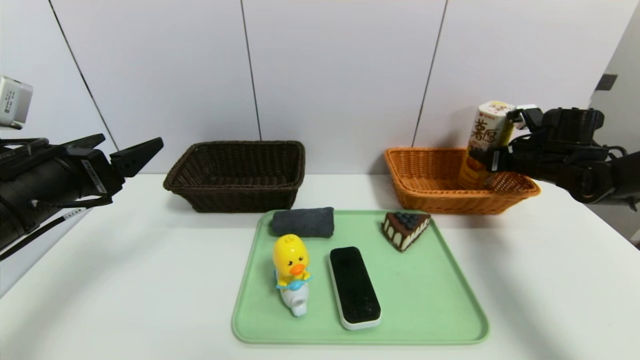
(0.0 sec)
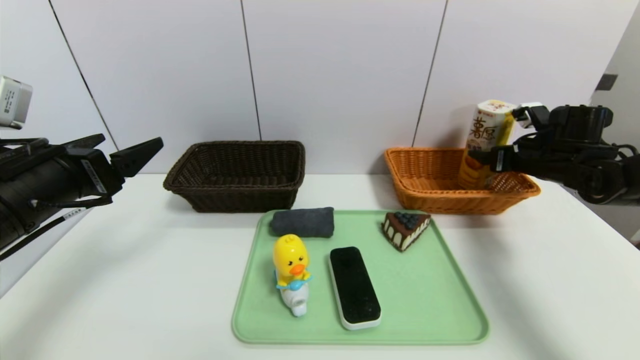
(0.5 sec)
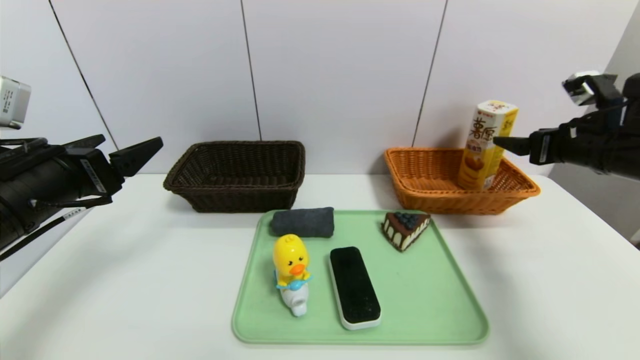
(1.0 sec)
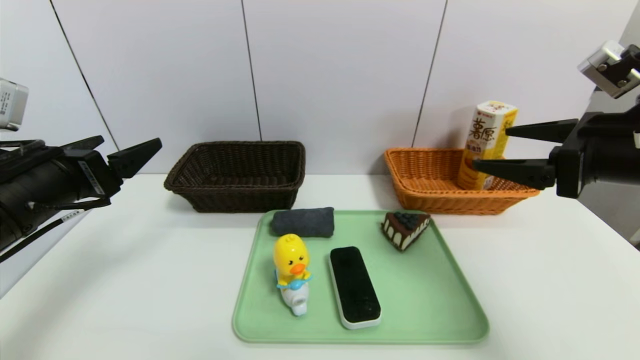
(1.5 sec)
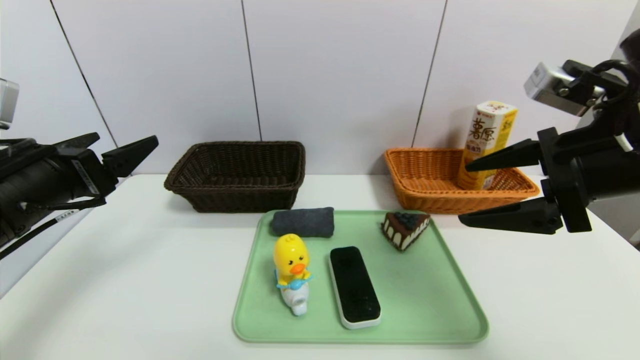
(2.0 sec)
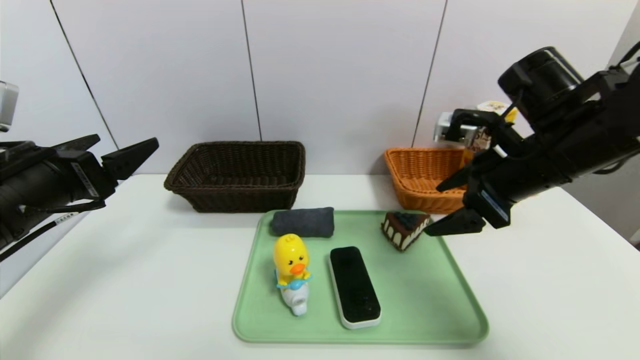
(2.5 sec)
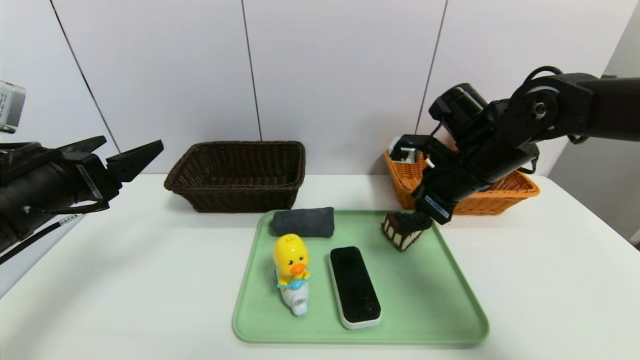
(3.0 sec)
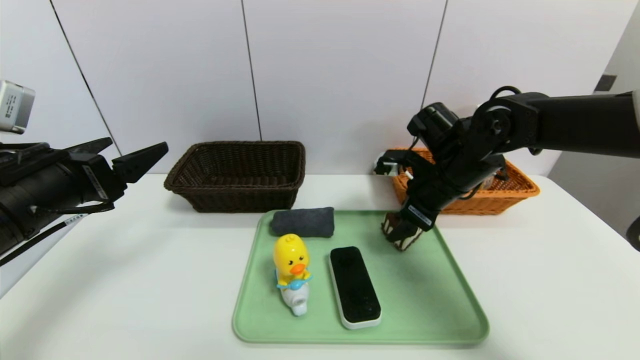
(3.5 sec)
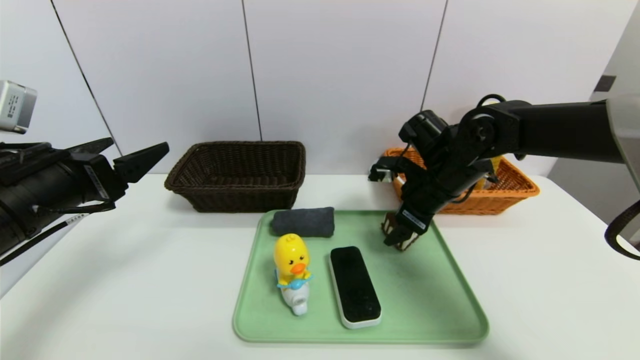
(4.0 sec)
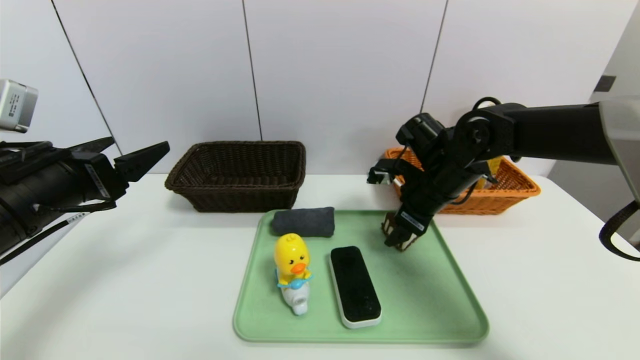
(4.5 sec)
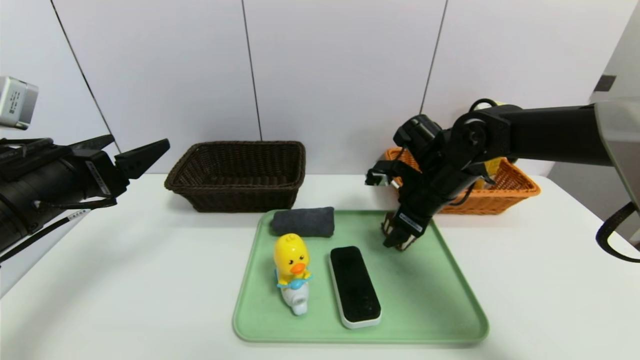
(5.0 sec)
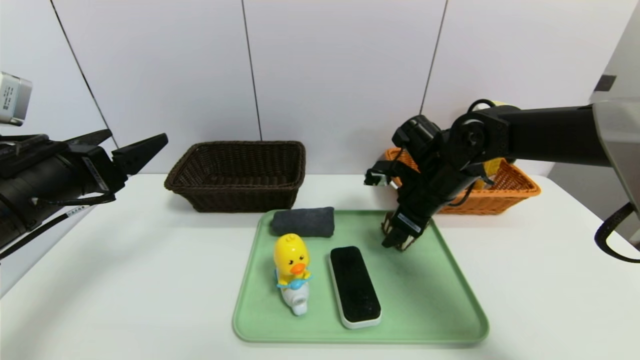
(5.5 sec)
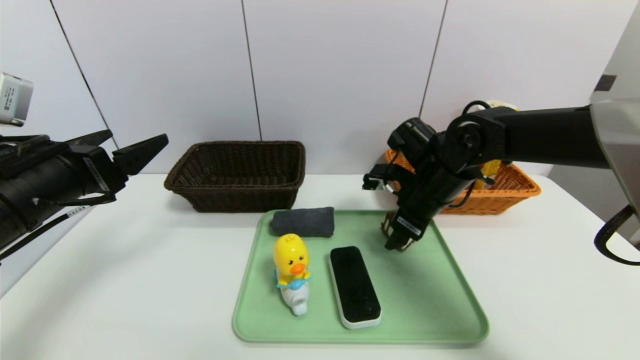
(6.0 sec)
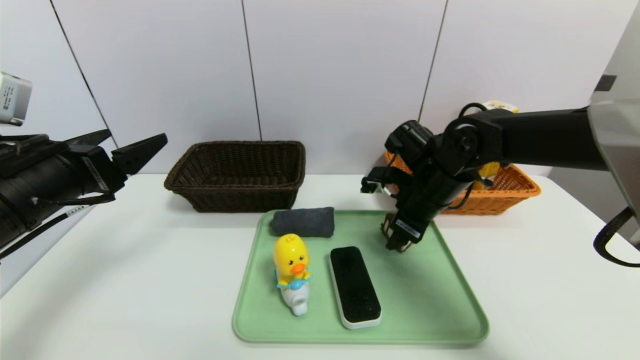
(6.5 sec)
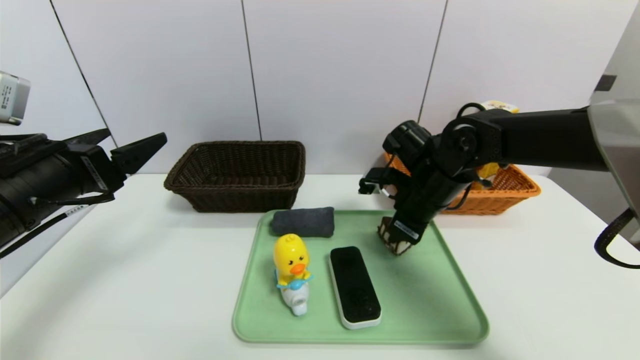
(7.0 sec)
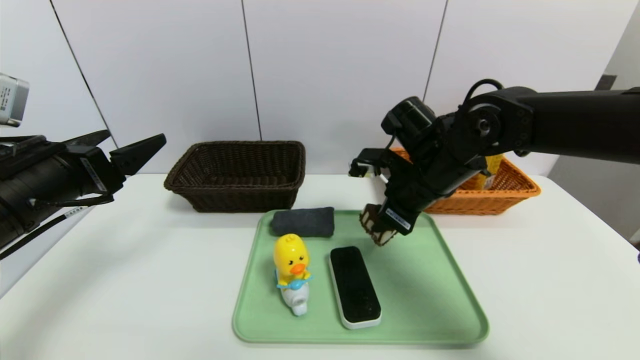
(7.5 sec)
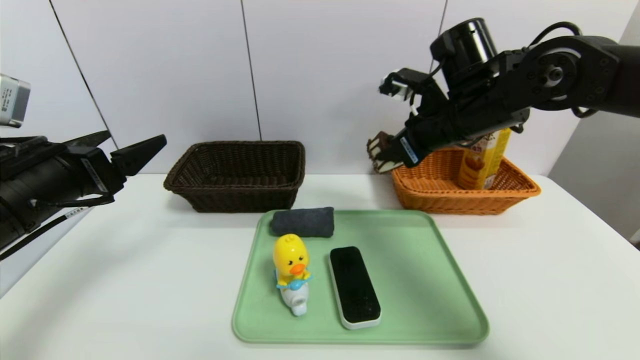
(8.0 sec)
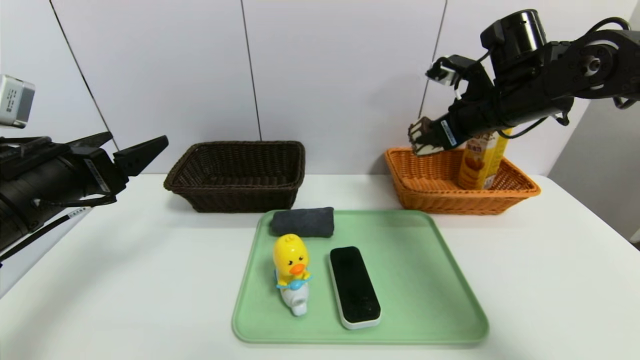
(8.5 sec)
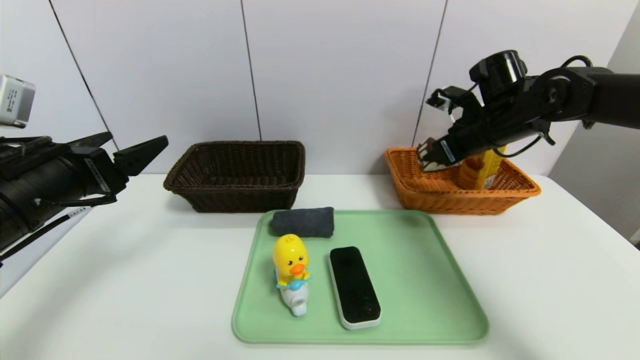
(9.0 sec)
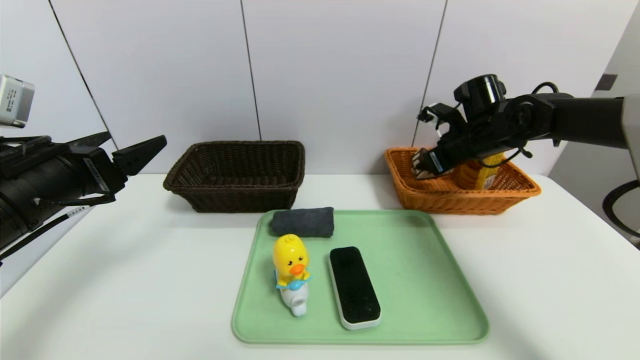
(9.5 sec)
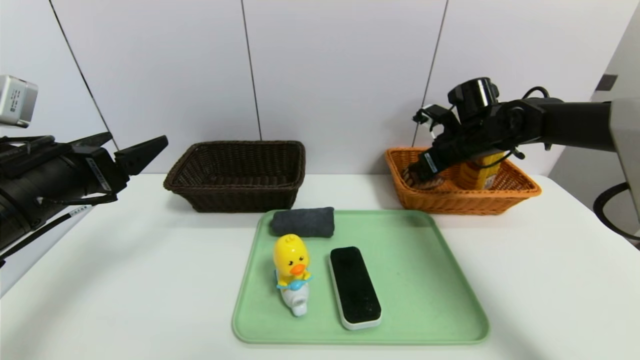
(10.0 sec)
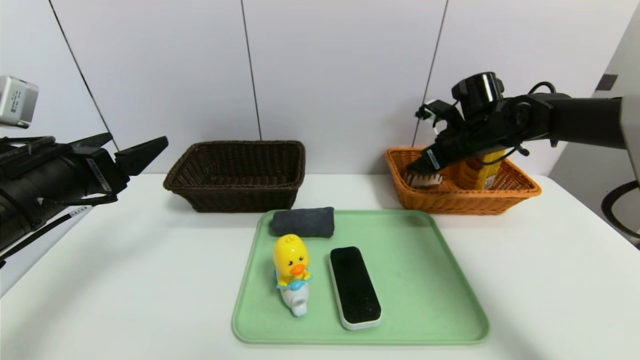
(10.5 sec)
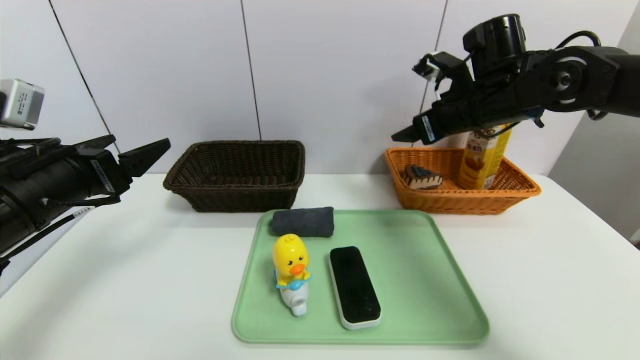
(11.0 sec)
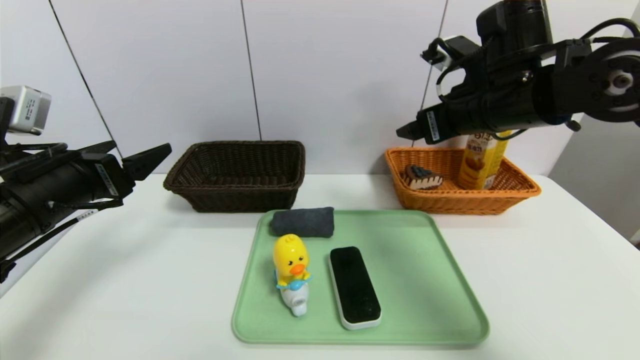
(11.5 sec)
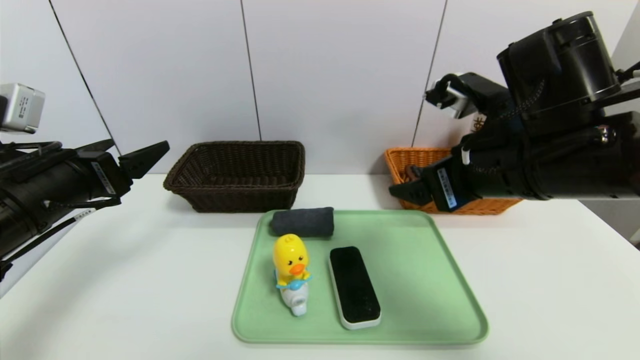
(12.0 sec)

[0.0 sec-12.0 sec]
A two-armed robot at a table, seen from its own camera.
Task of the whole recording: place the food in the right basket with the right gripper, and place the non food items in the left basket with the left gripper.
Step, 1.0 sec to 10.5 sec: Grasp the triangle cake and put it in the right basket.
0.0 sec to 2.0 sec: The right gripper shifts roughly 25 cm backward, upward and to the left, and opens up.
2.0 sec to 4.0 sec: The right gripper heads forward, downward and to the left, covering approximately 20 cm.
4.0 sec to 6.0 sec: The grippers make only small movements.
6.0 sec to 8.0 sec: The right gripper shifts approximately 10 cm upward, and closes.
8.0 sec to 10.0 sec: The right gripper travels forward, downward and to the right by approximately 15 cm, and opens its fingers.
10.0 sec to 12.0 sec: The right gripper shifts about 25 cm backward, and opens up.

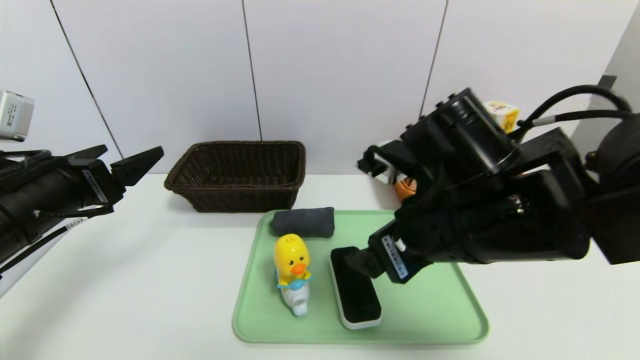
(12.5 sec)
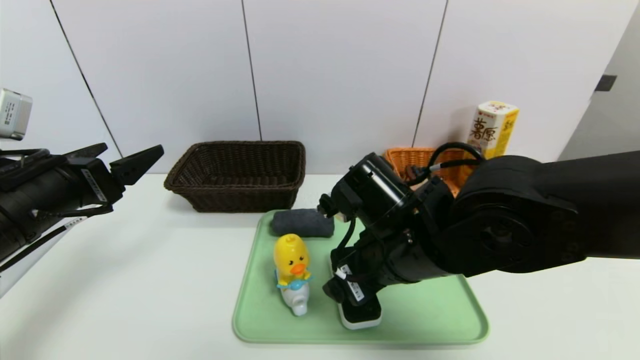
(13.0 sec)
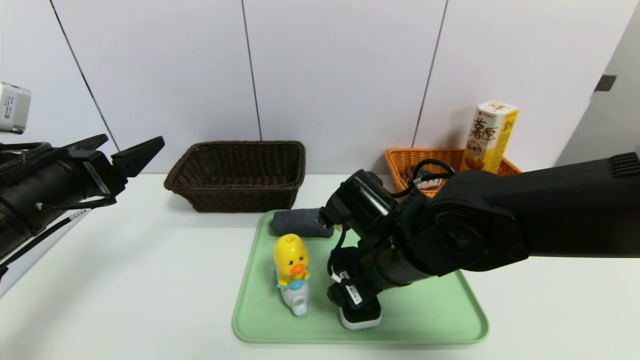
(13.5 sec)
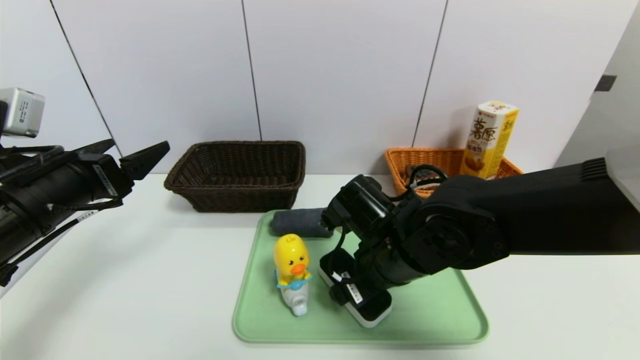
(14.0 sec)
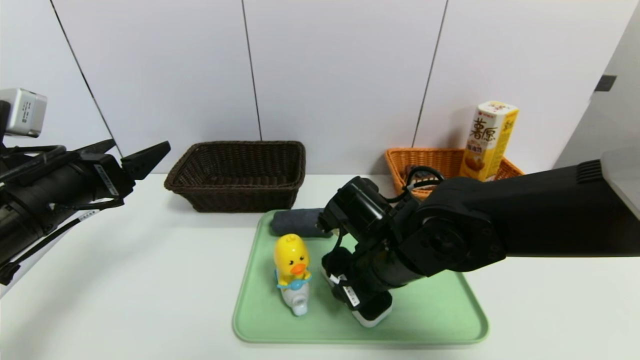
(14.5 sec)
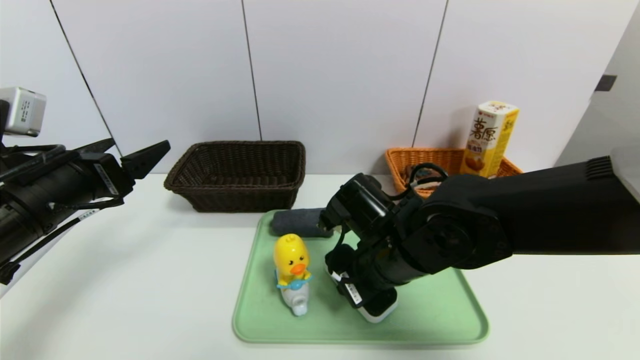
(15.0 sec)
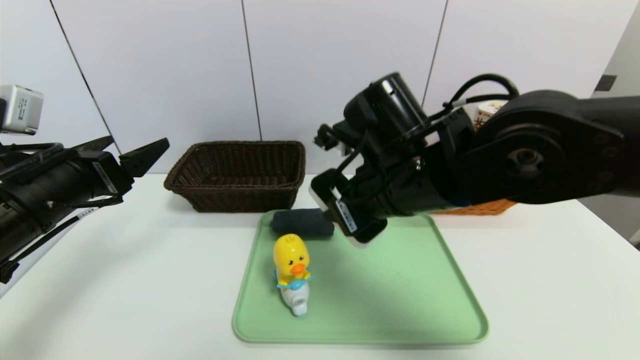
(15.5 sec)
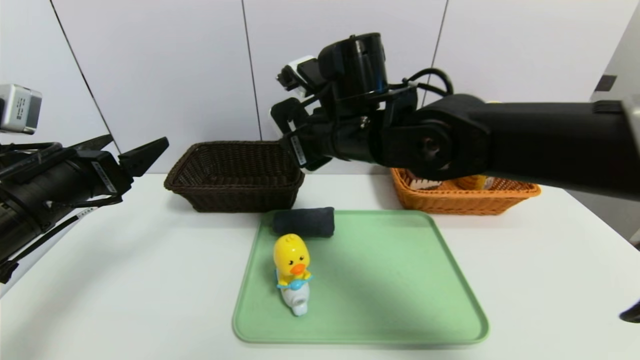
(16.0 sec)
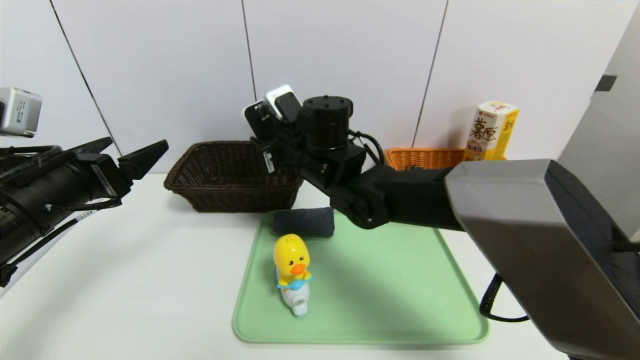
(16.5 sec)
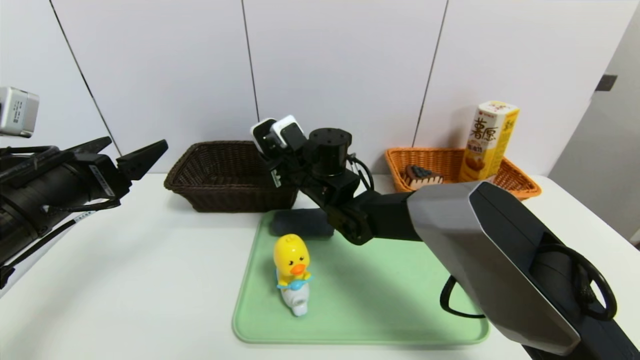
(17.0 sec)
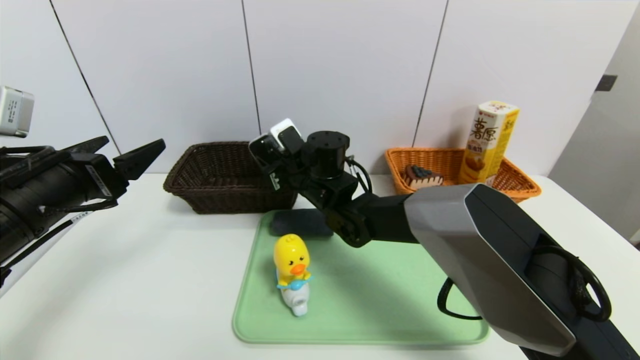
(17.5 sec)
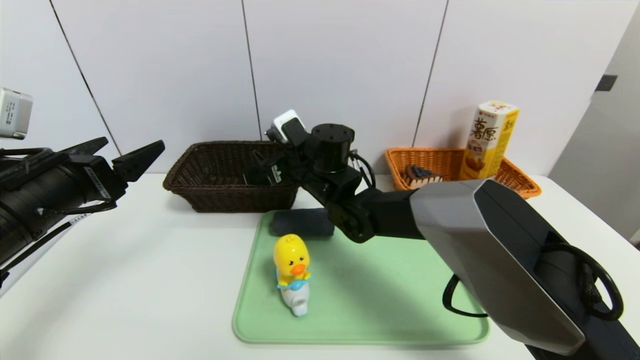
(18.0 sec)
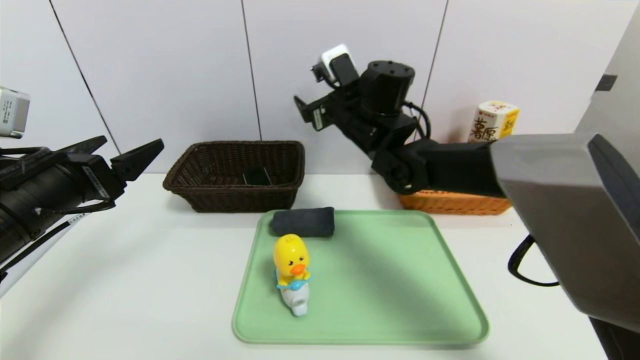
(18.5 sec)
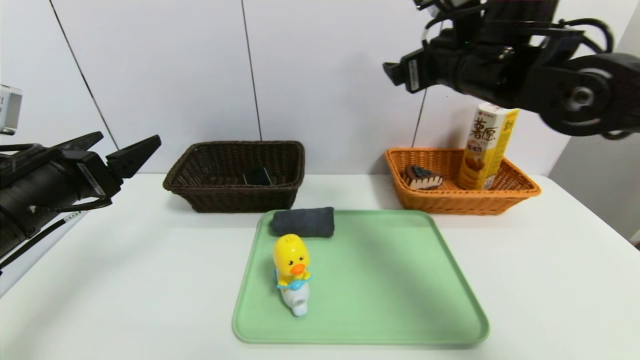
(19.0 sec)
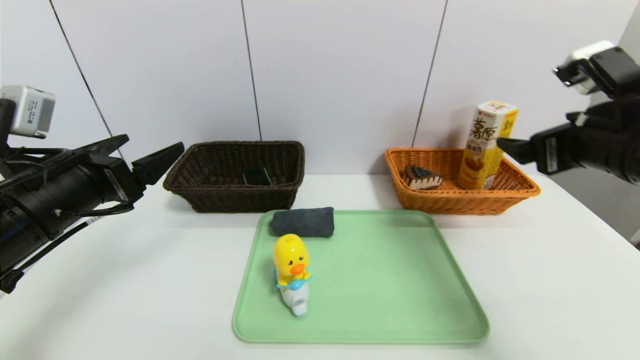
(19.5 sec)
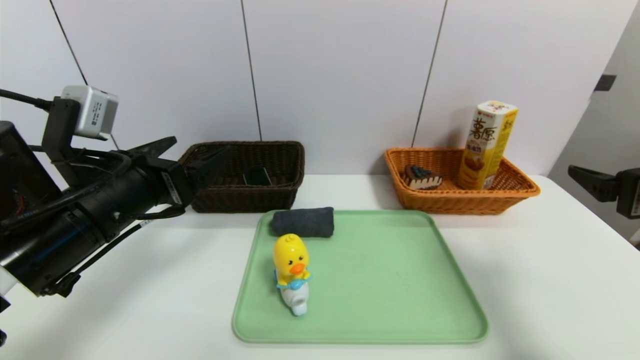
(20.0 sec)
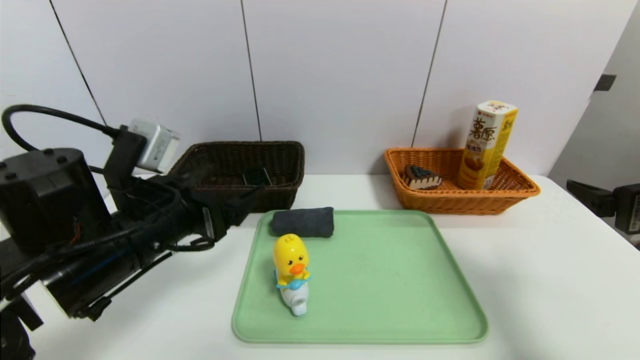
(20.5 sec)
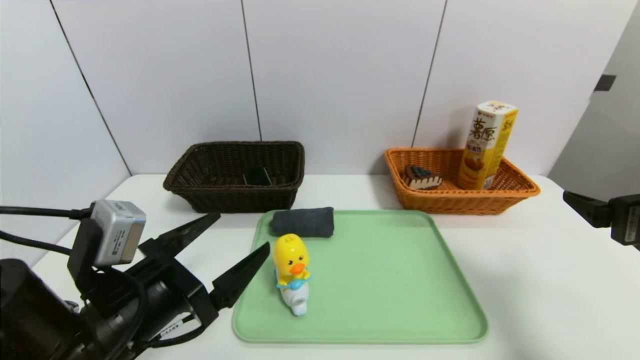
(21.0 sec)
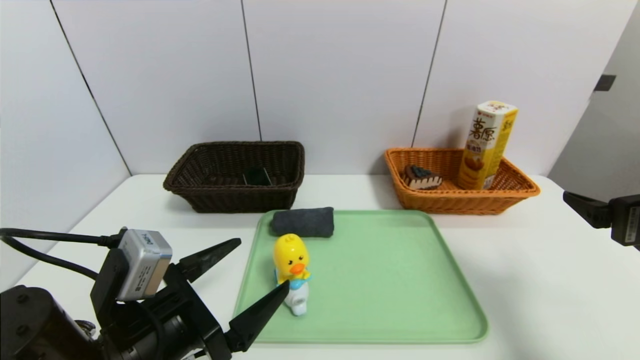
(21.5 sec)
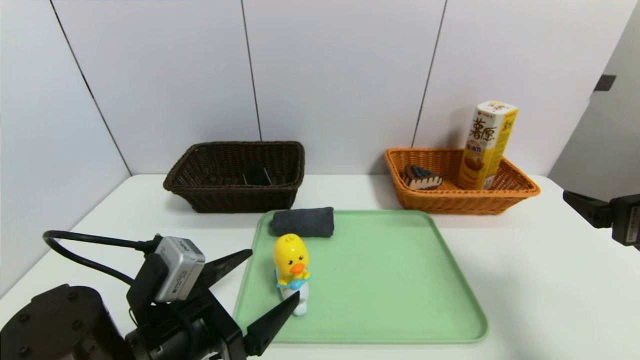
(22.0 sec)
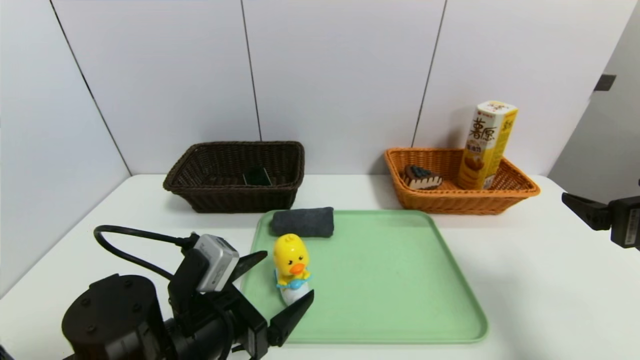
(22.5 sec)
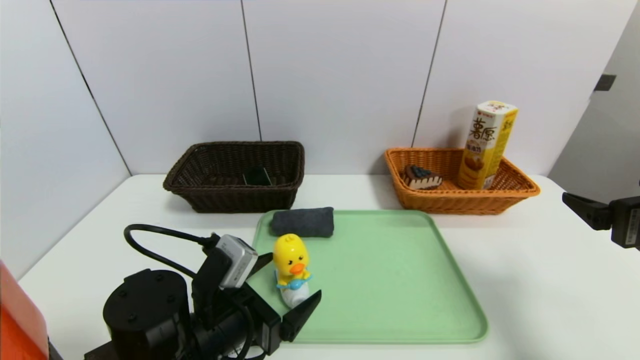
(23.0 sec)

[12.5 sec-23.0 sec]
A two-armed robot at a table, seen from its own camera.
Task of the whole recording: place the food in the right basket with the right gripper, and place the non food items in the left basket with the left gripper.
12.5 sec to 14.5 sec: The right gripper travels downward and forward by roughly 10 cm, and closes its fingers.
14.5 sec to 16.5 sec: The right gripper heads forward, to the left and upward, covering approximately 15 cm.
16.5 sec to 19.0 sec: The right gripper travels to the right and upward by some 25 cm, and opens its fingers.
19.0 sec to 21.0 sec: The left gripper is displaced to the right, downward and backward by approximately 15 cm; the right gripper moves backward, to the right and downward, about 25 cm.
21.0 sec to 23.0 sec: The left gripper is displaced downward and to the right by approximately 10 cm.
